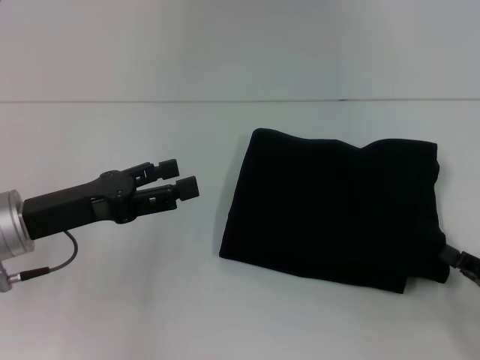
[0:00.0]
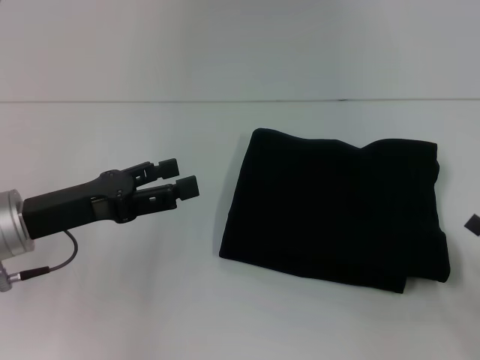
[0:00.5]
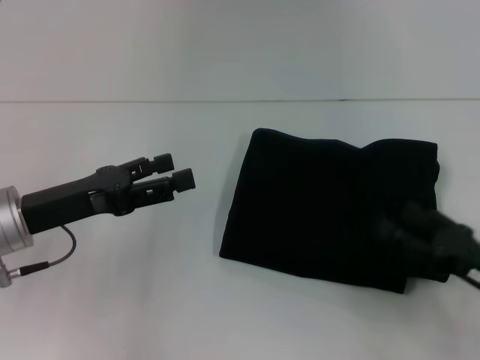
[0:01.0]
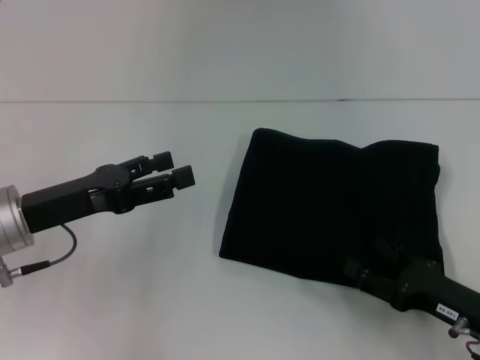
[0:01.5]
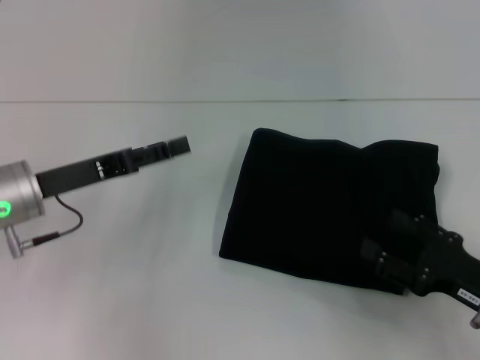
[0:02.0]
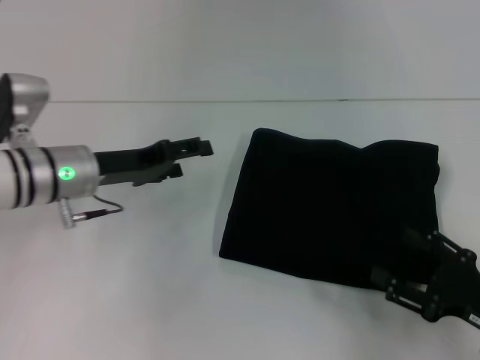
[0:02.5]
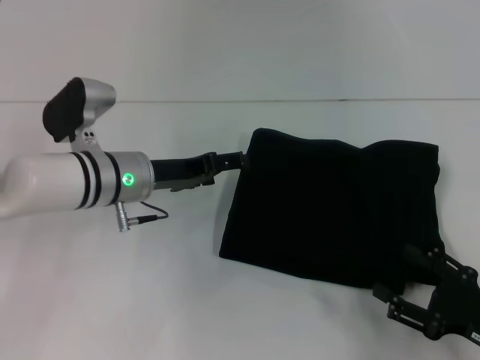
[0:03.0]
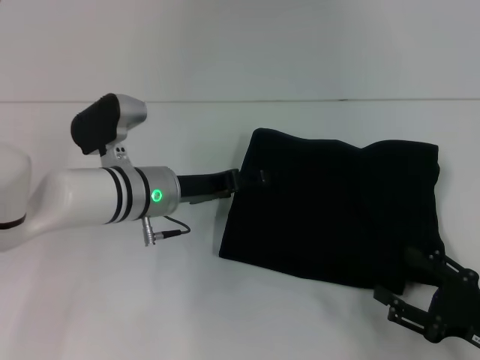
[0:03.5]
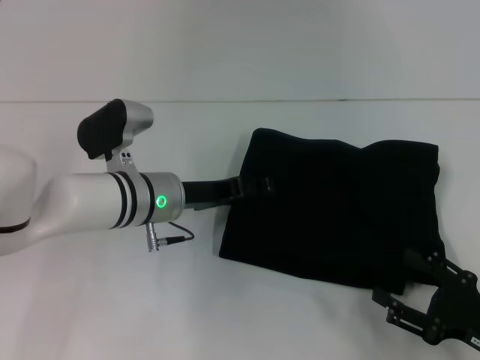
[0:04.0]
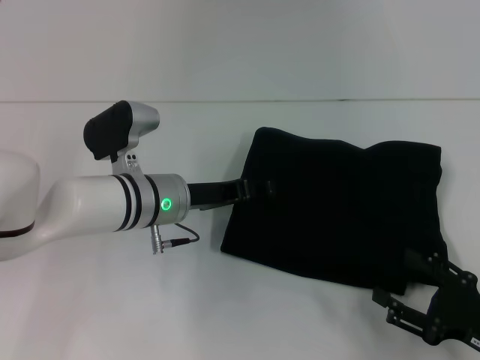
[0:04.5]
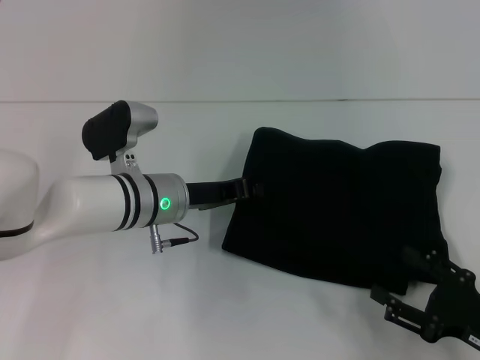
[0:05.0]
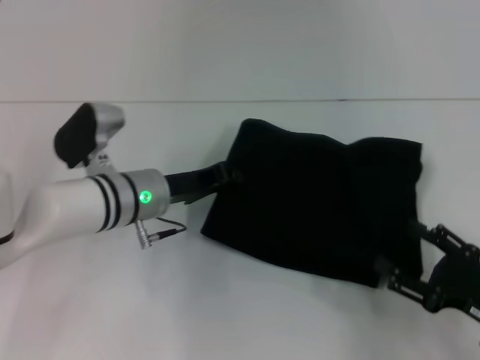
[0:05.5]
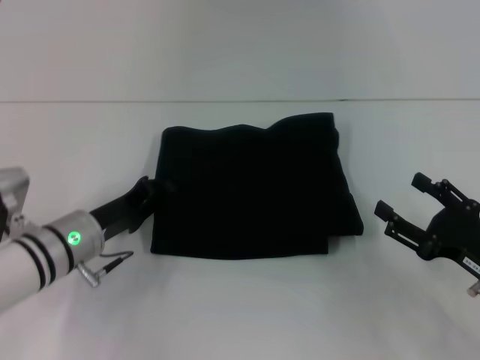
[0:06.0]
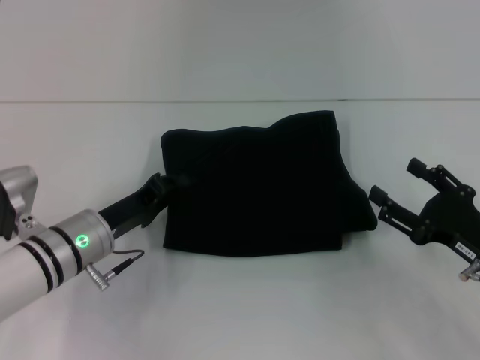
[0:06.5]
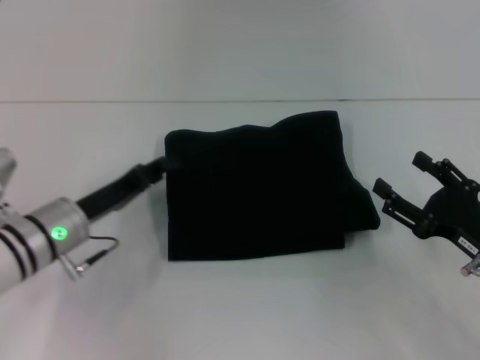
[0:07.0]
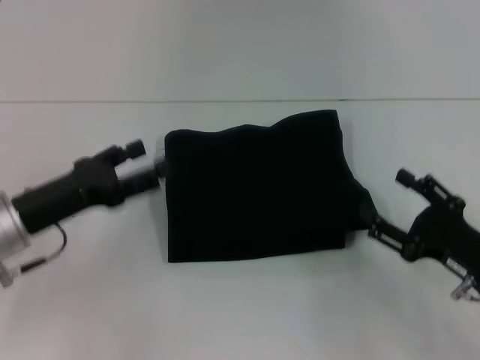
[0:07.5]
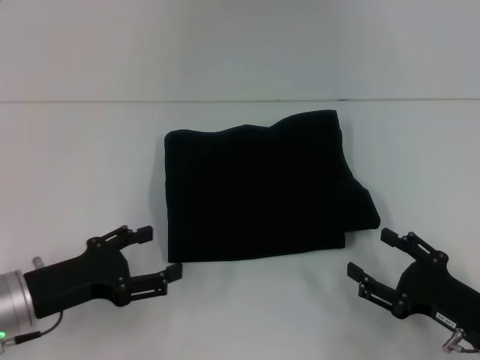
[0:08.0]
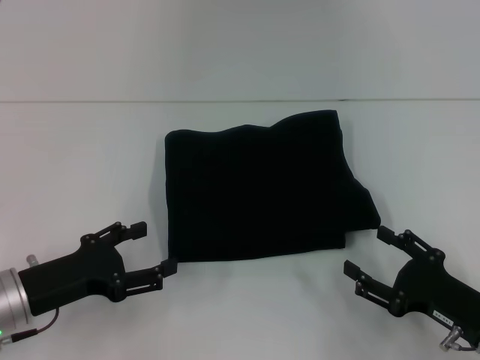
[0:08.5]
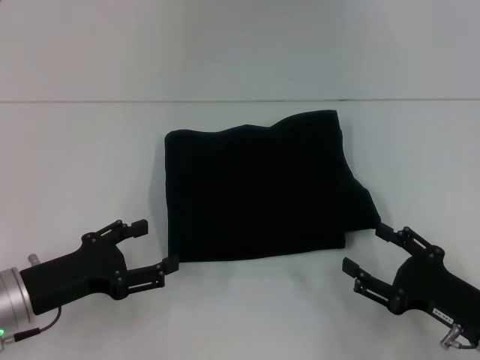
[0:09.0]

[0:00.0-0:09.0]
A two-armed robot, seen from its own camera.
0:00.0 to 0:02.0: The right gripper shifts roughly 5 cm to the left, and opens up.
0:02.0 to 0:04.5: The left gripper is displaced to the right by approximately 15 cm.
0:04.5 to 0:07.0: The left gripper is displaced to the left by roughly 10 cm, and closes its fingers; the right gripper moves forward, approximately 5 cm.
0:07.0 to 0:09.0: The right gripper changes place by some 5 cm. Meanwhile the left gripper moves backward, approximately 10 cm, and opens up.

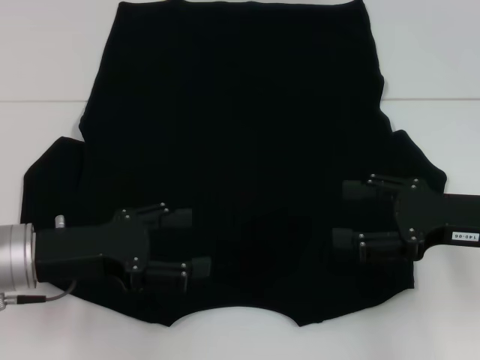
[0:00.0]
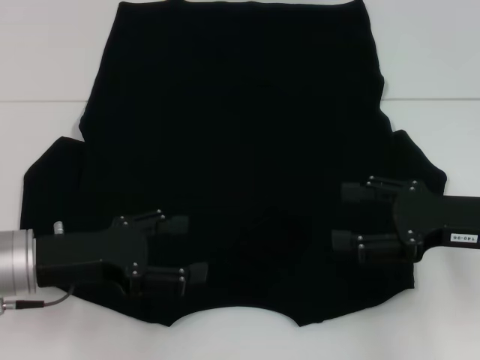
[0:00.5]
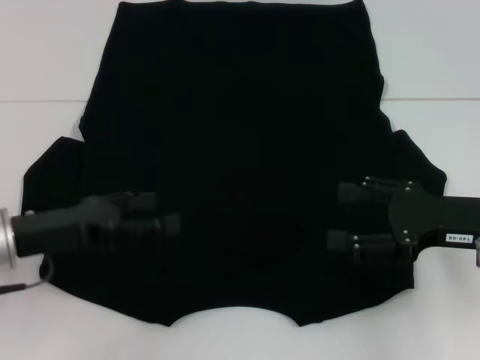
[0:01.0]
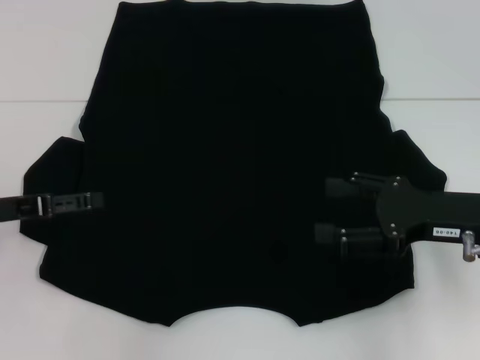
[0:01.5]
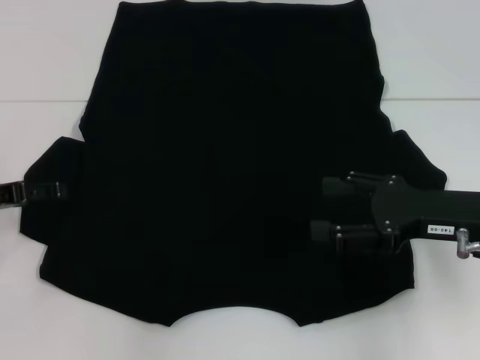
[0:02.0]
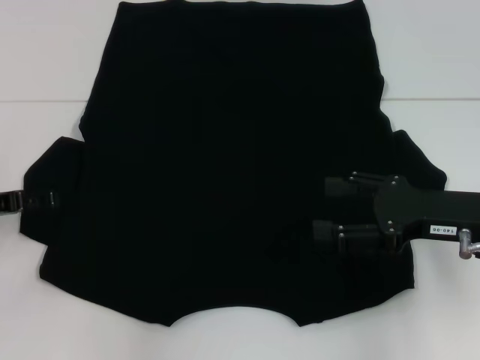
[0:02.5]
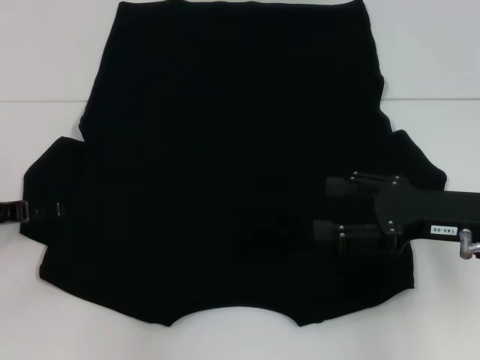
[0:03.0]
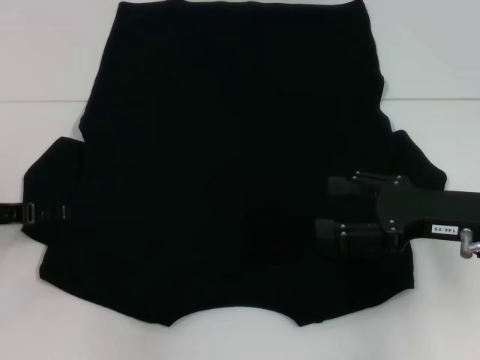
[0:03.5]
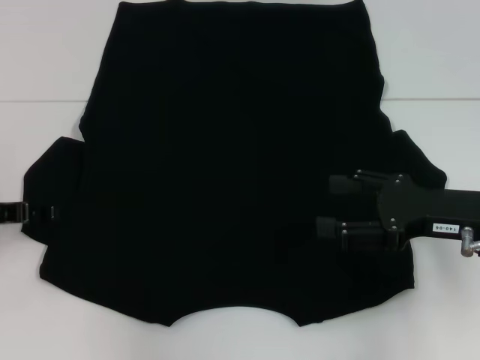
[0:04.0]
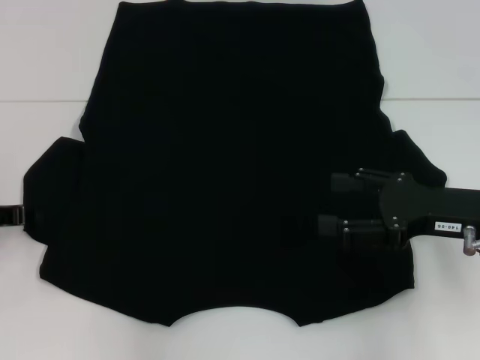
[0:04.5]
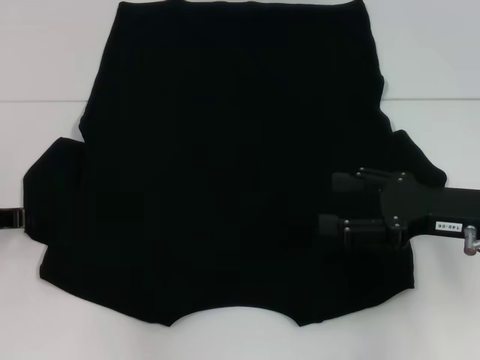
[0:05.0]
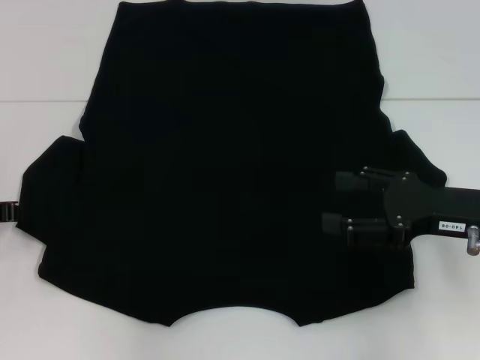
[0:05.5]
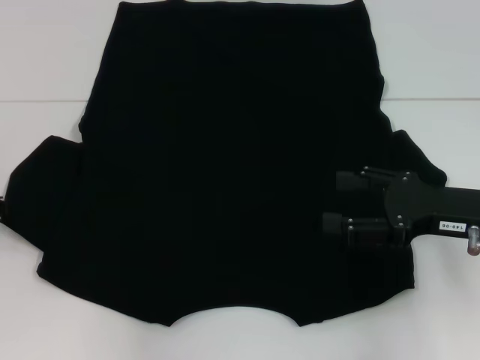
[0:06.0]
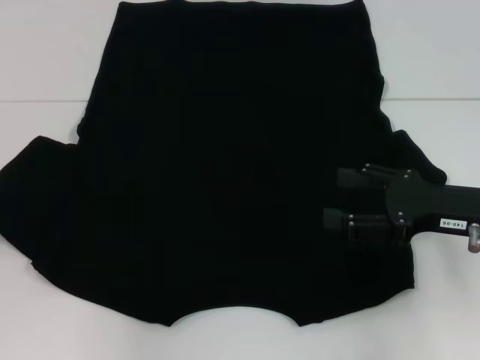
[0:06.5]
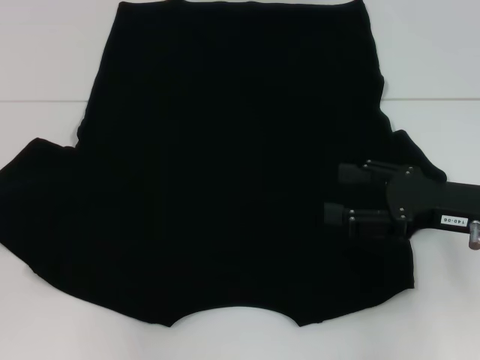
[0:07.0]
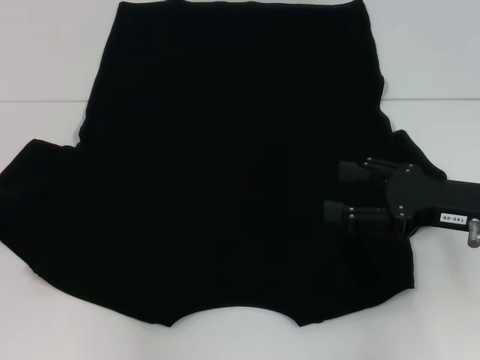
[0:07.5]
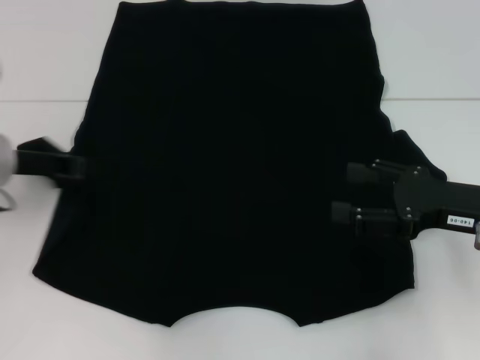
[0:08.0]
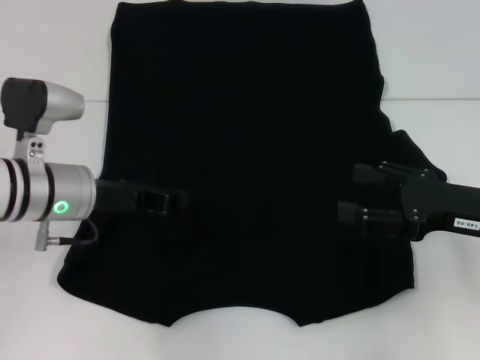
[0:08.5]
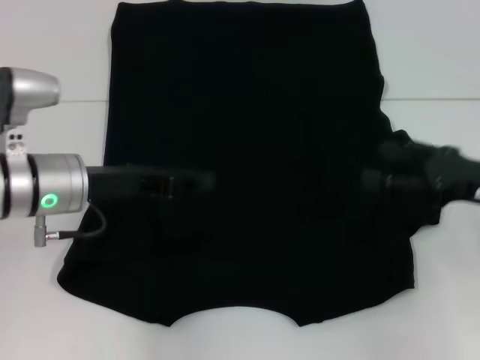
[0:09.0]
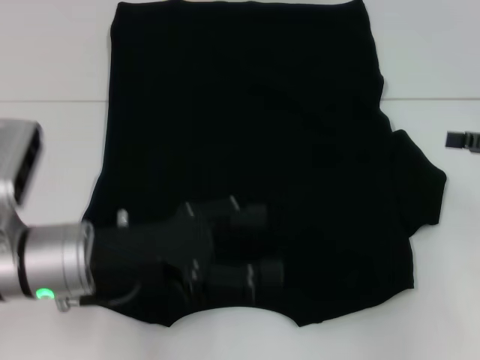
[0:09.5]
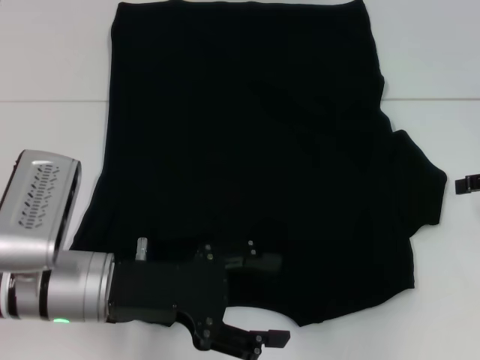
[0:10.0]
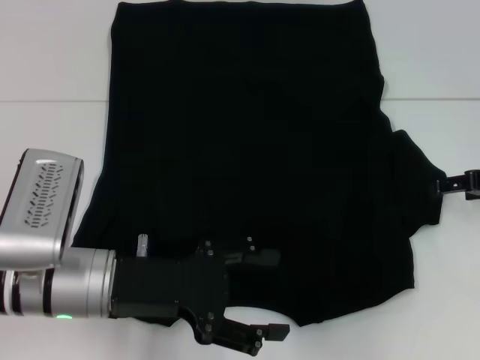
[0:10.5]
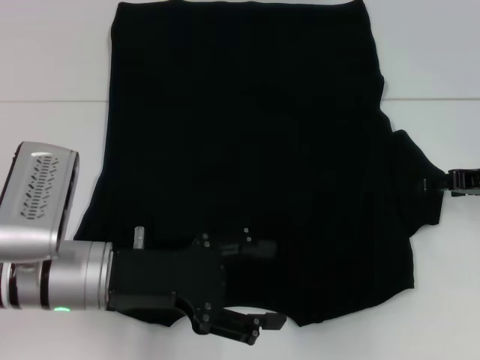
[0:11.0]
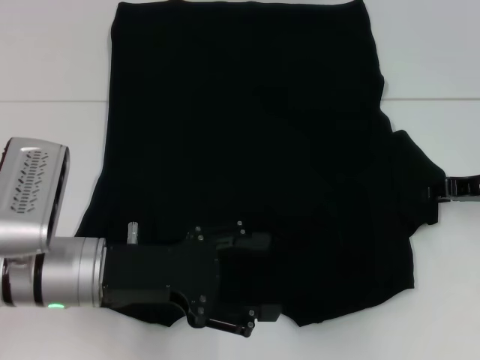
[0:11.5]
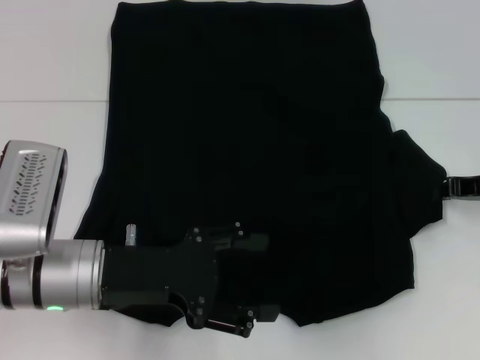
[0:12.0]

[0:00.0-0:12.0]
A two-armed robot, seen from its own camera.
Step, 0:00.0 to 0:09.0: Fold the bottom left sleeve with your left hand.
0:00.0 to 0:02.0: The left gripper travels to the left and forward by approximately 10 cm.
0:02.0 to 0:04.0: The grippers make only small movements.
0:04.0 to 0:06.0: The left gripper closes.
0:06.0 to 0:08.0: The left gripper goes some 10 cm to the right.
0:08.0 to 0:10.0: The right gripper travels to the right and forward by about 10 cm. The left gripper heads to the right and backward, covering about 15 cm, and opens its fingers.
0:10.0 to 0:12.0: The right gripper ends up some 5 cm from where it was, and closes its fingers.

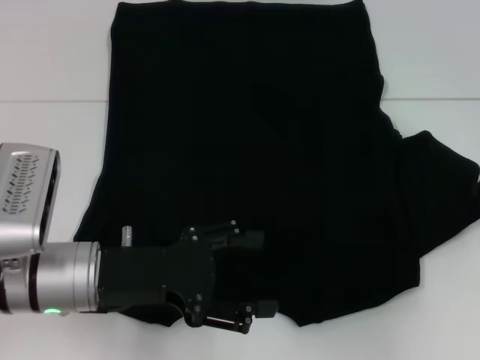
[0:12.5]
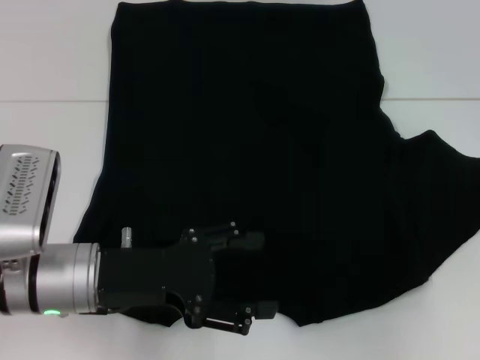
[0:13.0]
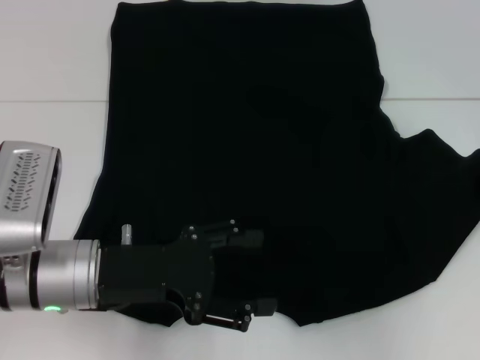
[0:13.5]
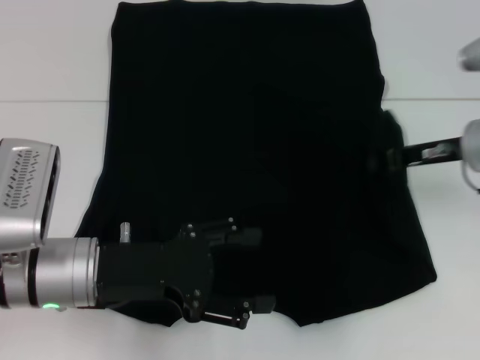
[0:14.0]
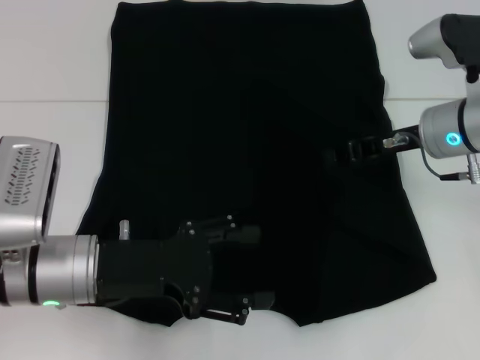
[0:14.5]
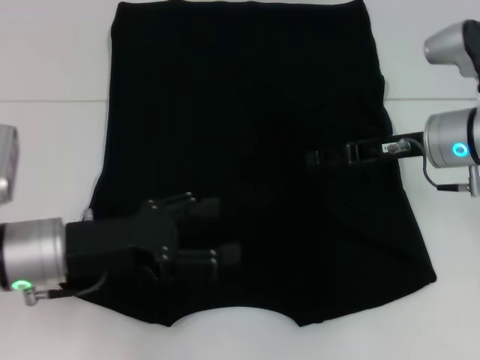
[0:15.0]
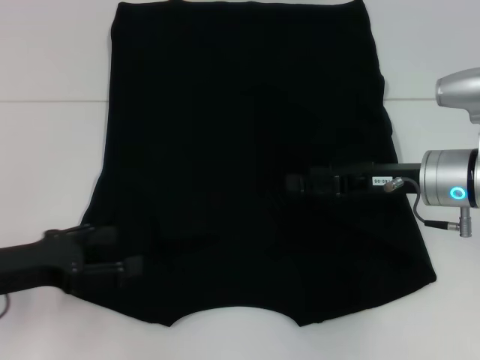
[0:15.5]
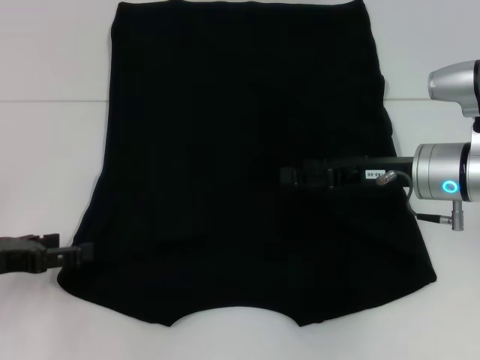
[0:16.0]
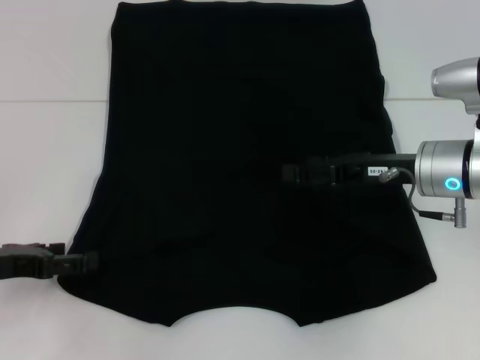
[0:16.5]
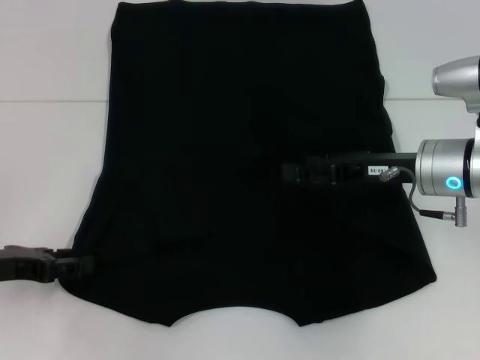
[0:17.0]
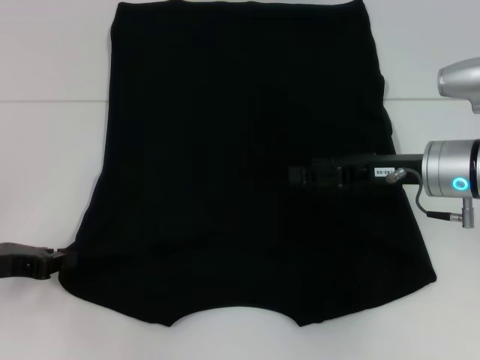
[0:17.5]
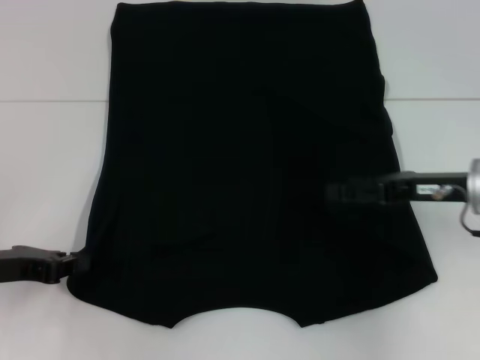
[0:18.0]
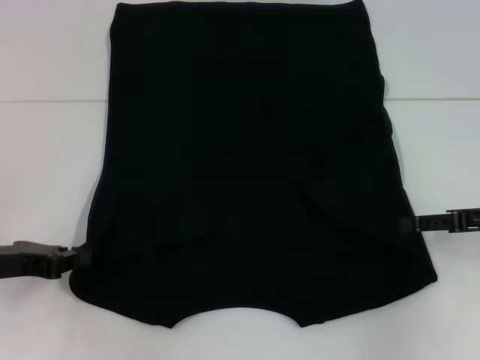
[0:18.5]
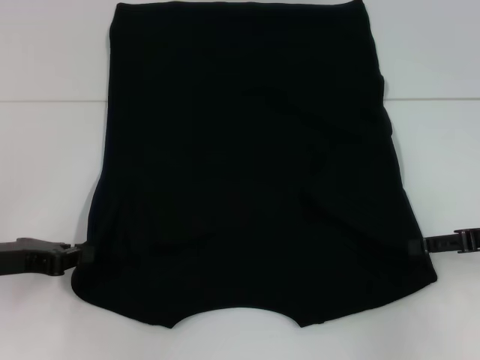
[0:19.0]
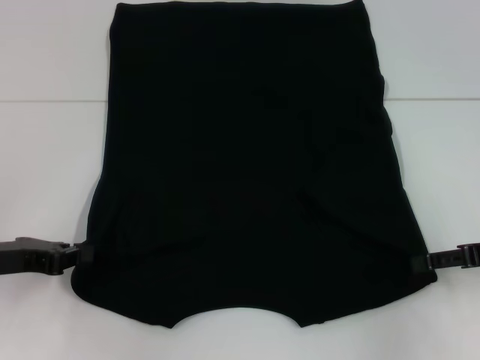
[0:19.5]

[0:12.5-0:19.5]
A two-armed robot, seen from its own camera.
Step, 0:12.5 to 0:14.5: Fold the bottom right sleeve with your right hand.
0:12.5 to 0:14.5: The right gripper is displaced to the left by about 15 cm.
0:14.5 to 0:16.0: The left gripper goes roughly 15 cm to the left. Meanwhile the right gripper moves approximately 5 cm, and opens.
0:16.0 to 0:17.5: The left gripper closes up.
0:17.5 to 0:19.5: The right gripper shifts about 15 cm to the right and backward.
